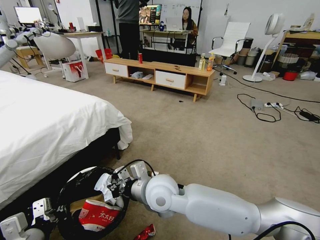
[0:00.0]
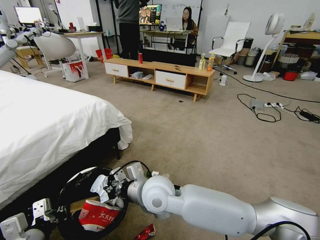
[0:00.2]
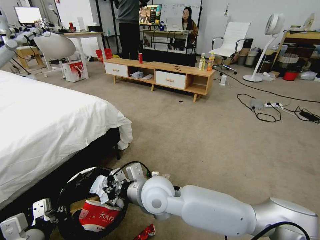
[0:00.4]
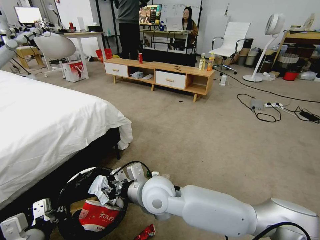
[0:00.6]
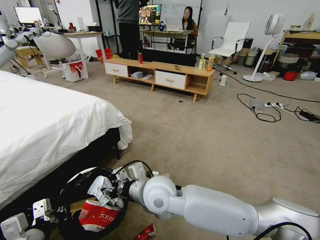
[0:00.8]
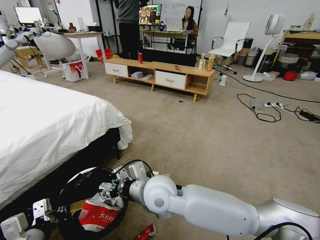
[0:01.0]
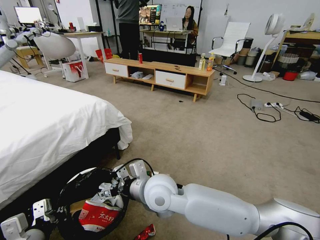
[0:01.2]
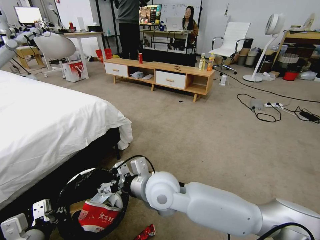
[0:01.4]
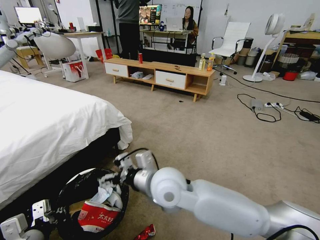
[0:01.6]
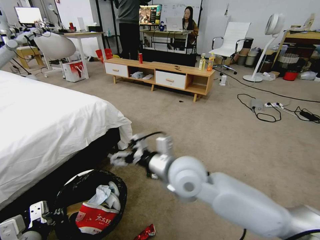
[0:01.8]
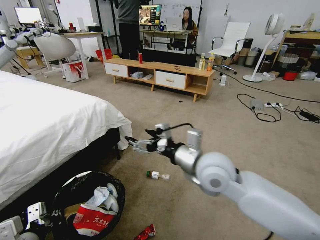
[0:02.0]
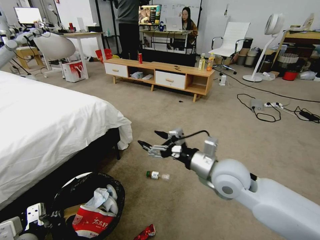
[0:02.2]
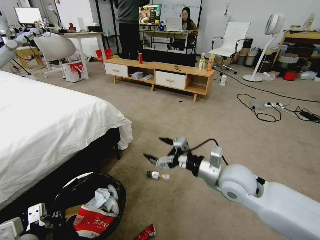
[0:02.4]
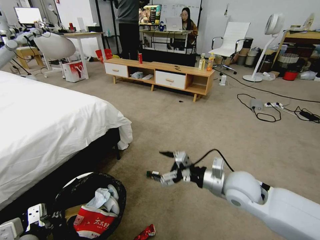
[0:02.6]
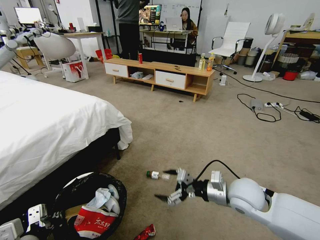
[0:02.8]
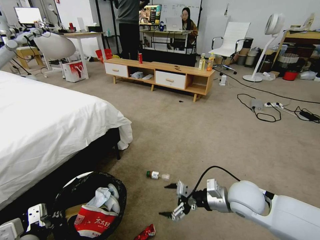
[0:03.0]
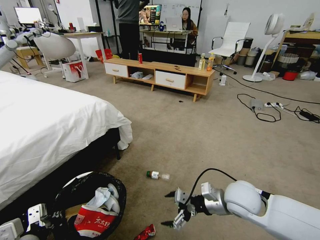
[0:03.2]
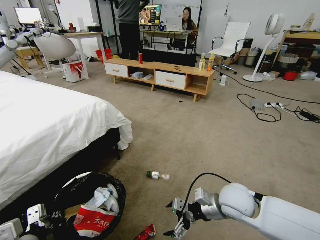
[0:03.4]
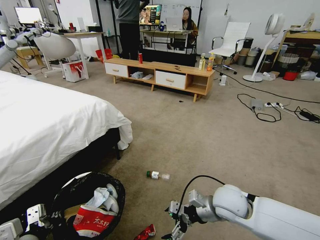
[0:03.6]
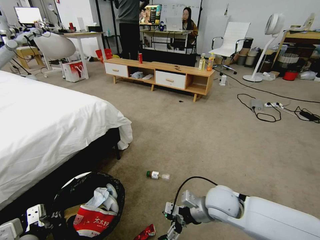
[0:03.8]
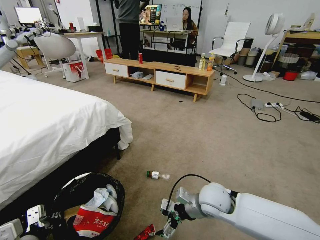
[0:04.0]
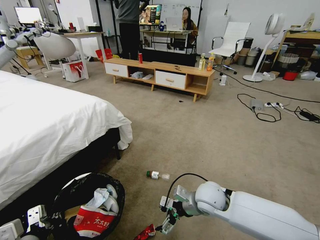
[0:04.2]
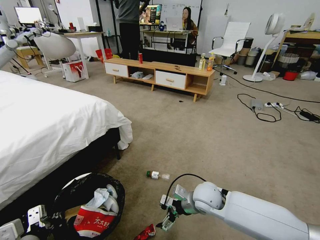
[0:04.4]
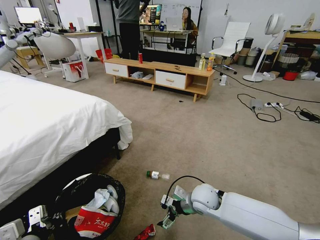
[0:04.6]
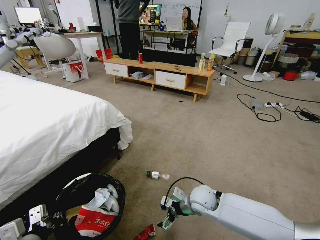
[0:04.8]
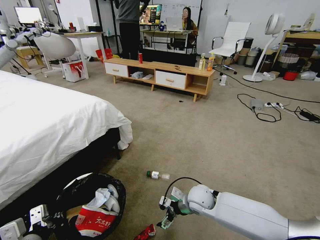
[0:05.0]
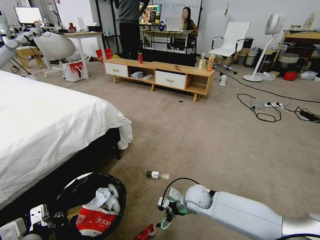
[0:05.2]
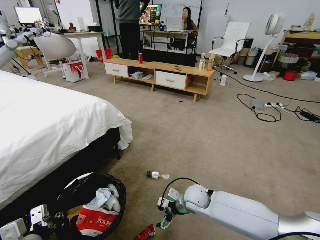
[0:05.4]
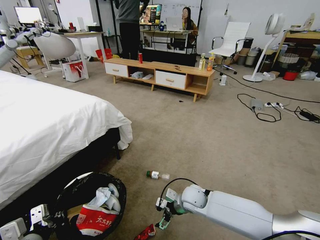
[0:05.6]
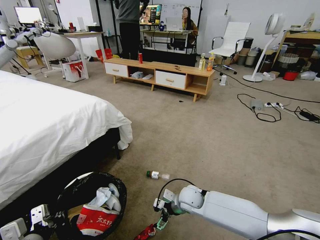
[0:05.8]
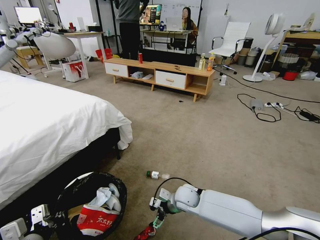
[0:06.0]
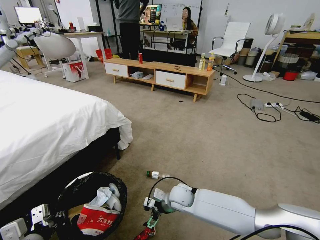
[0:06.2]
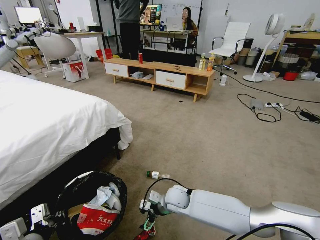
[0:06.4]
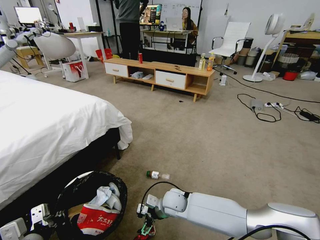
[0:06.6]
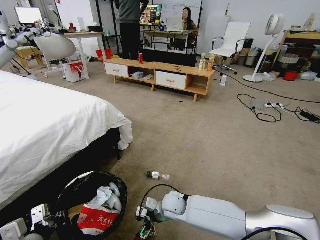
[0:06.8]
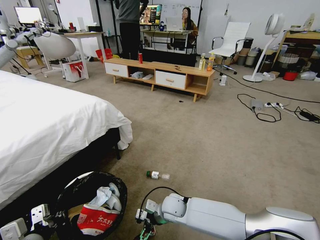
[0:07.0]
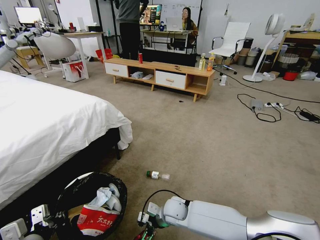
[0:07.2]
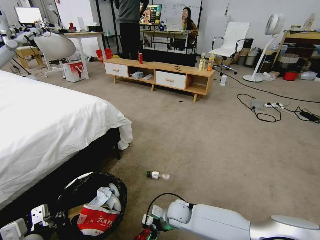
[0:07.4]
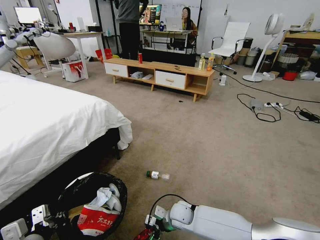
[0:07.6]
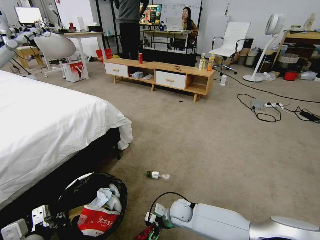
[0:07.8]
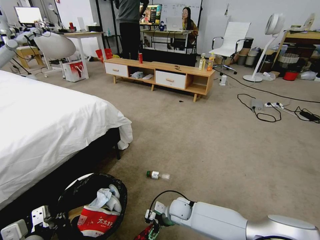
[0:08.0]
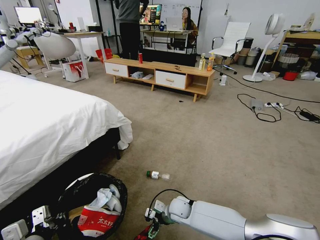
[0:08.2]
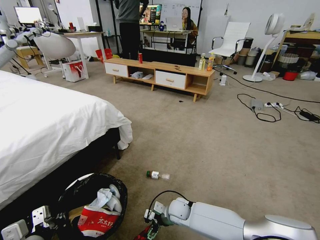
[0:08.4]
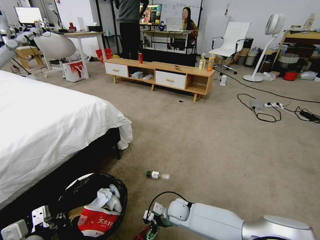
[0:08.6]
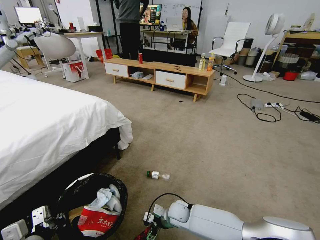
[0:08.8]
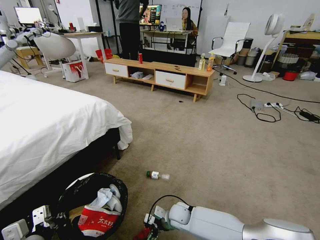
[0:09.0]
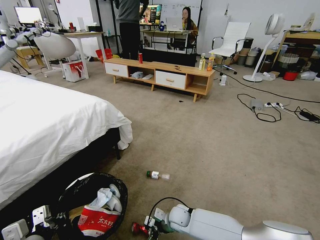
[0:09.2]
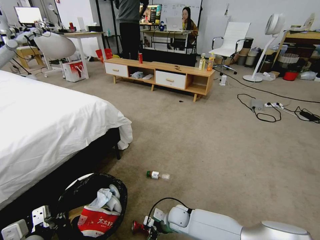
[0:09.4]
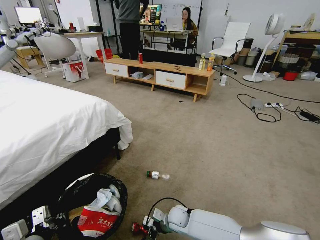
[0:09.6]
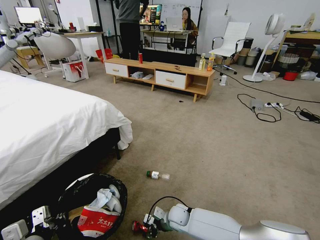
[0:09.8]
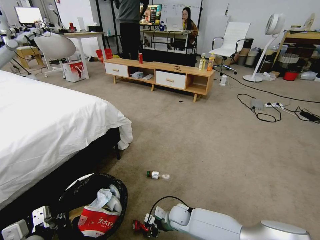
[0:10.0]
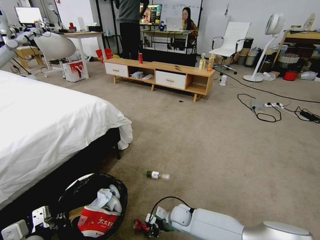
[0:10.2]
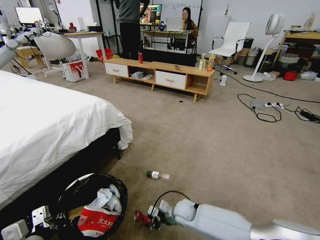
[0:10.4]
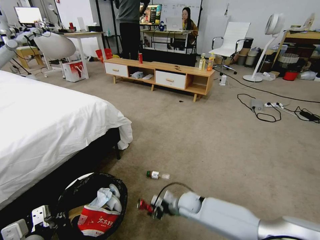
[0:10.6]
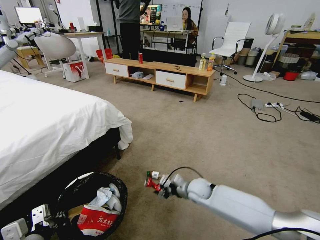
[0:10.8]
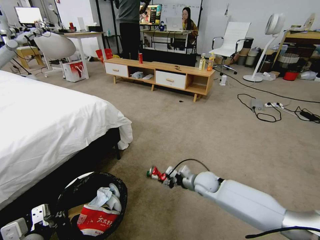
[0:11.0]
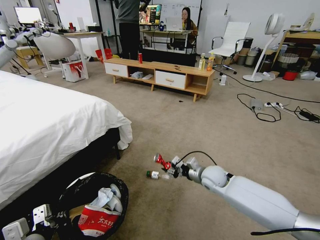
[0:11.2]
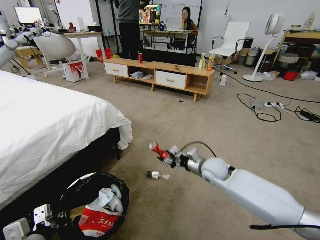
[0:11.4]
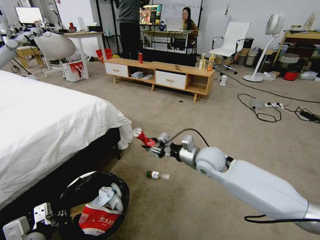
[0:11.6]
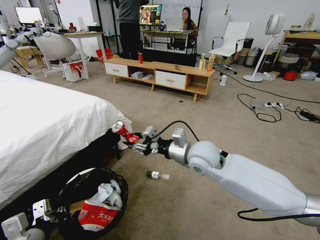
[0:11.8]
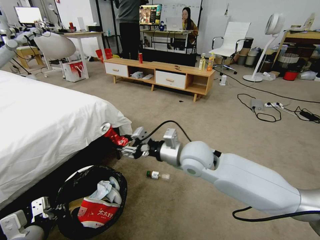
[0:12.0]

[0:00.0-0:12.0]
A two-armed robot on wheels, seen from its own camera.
Task of the whole recording: Pick up the trash bin and place the garbage on the floor into it.
0:00.0 to 0:01.6: The right gripper opens its fingers.
0:01.6 to 0:03.0: The right gripper shifts roughly 25 cm to the right.
0:03.0 to 0:04.4: The right gripper shifts approximately 10 cm to the left and downward.
0:04.4 to 0:06.0: The right gripper goes approximately 10 cm downward and to the left.
0:06.0 to 0:07.6: The right gripper goes about 5 cm downward.
0:07.6 to 0:09.0: The grippers move only a little.
0:09.0 to 0:10.4: The right gripper closes up.
0:10.4 to 0:12.0: The right gripper is displaced upward by approximately 35 cm.

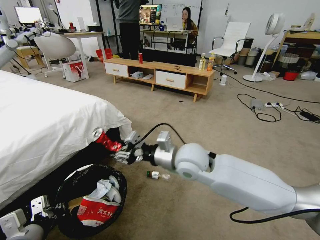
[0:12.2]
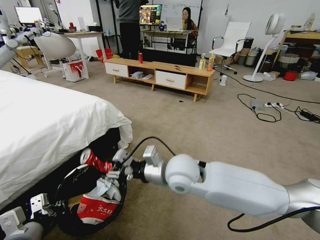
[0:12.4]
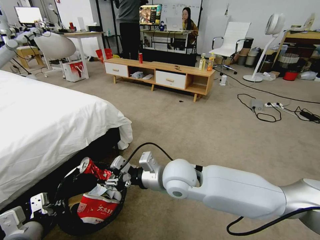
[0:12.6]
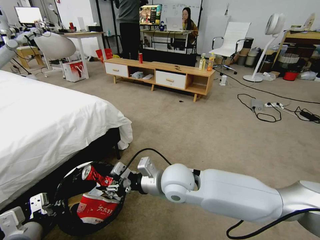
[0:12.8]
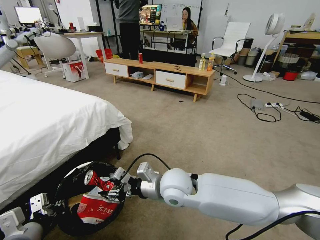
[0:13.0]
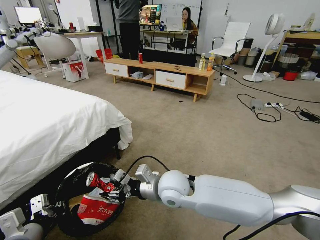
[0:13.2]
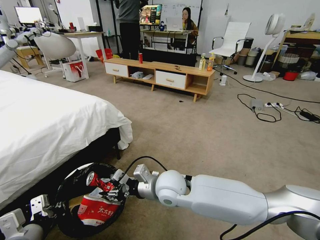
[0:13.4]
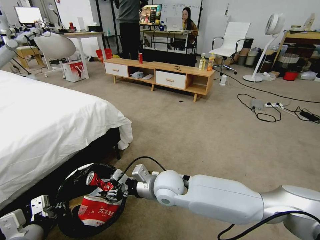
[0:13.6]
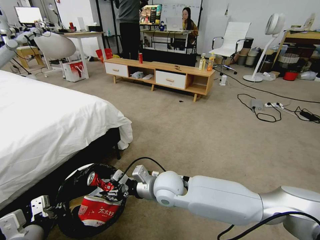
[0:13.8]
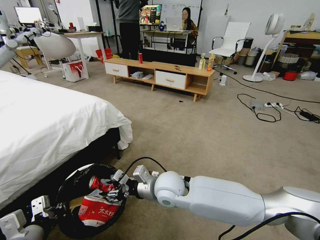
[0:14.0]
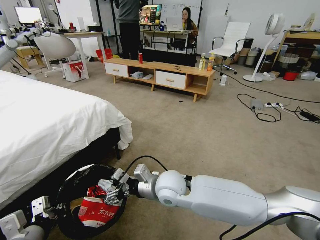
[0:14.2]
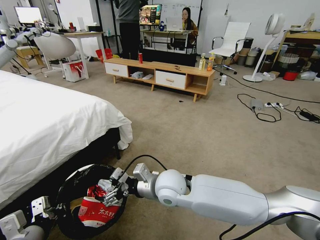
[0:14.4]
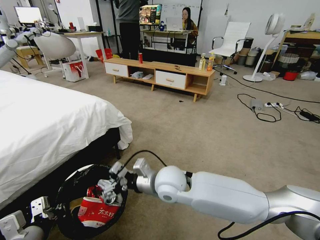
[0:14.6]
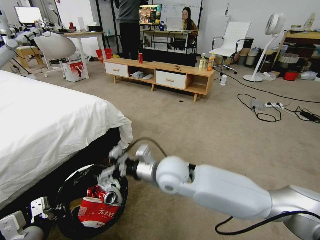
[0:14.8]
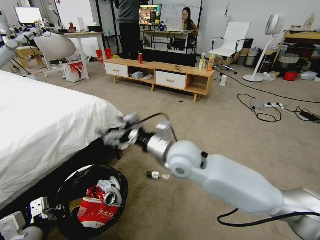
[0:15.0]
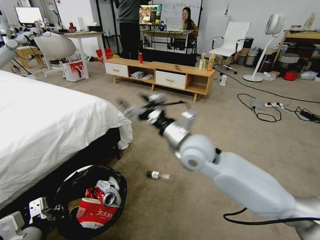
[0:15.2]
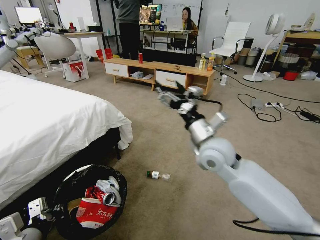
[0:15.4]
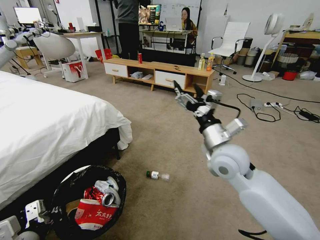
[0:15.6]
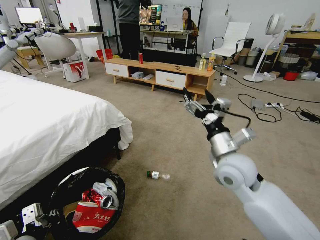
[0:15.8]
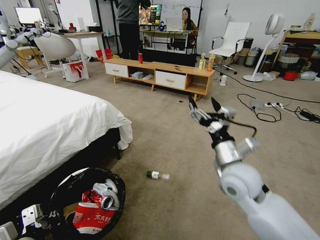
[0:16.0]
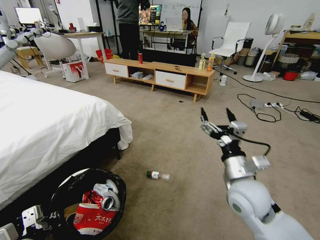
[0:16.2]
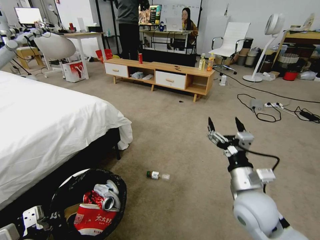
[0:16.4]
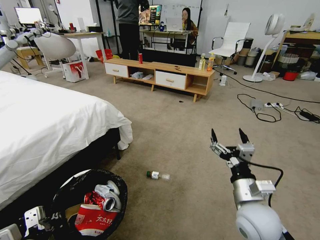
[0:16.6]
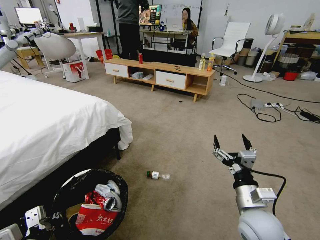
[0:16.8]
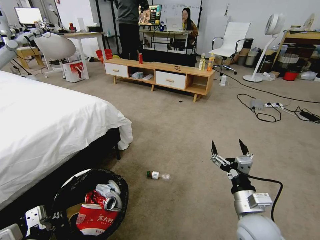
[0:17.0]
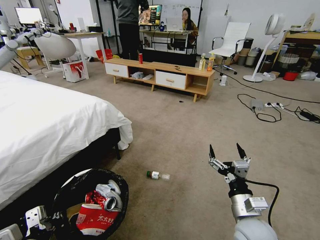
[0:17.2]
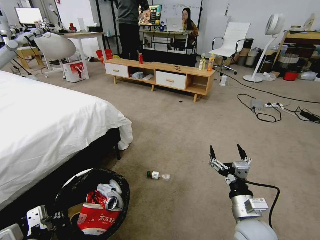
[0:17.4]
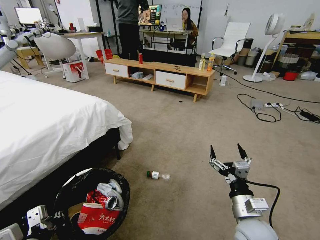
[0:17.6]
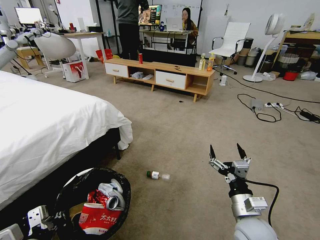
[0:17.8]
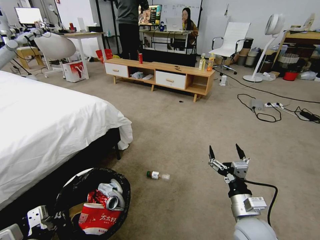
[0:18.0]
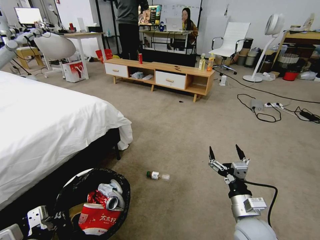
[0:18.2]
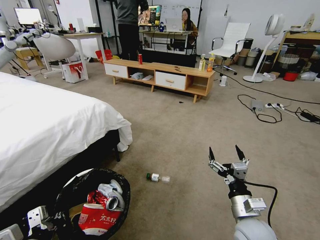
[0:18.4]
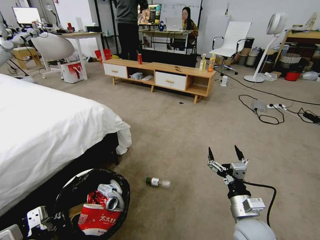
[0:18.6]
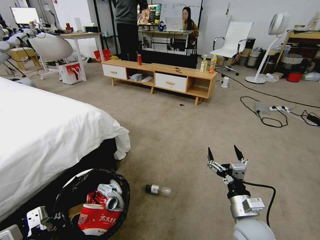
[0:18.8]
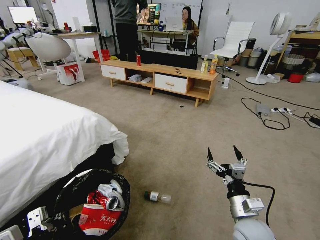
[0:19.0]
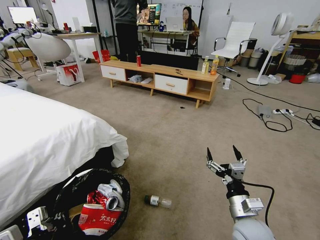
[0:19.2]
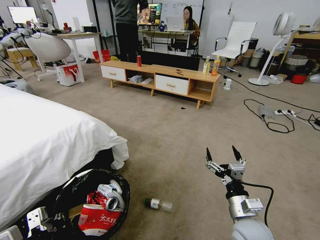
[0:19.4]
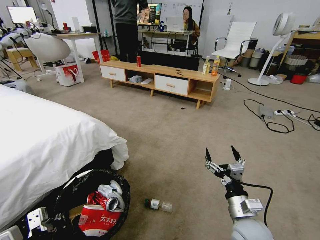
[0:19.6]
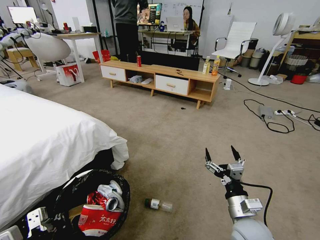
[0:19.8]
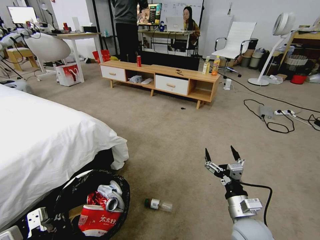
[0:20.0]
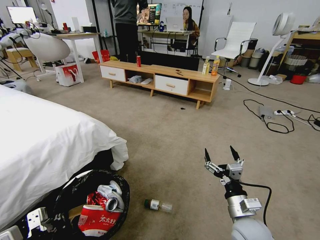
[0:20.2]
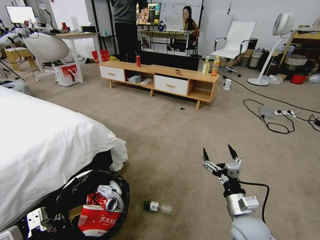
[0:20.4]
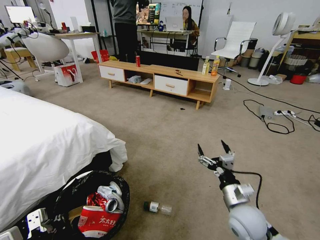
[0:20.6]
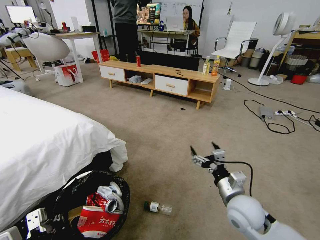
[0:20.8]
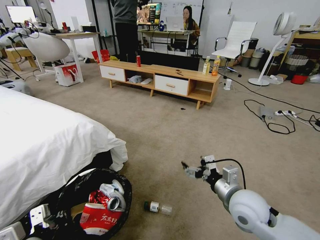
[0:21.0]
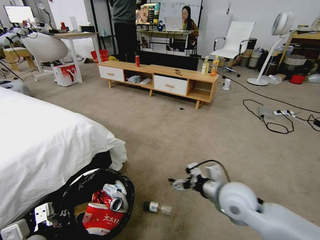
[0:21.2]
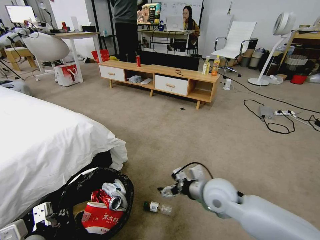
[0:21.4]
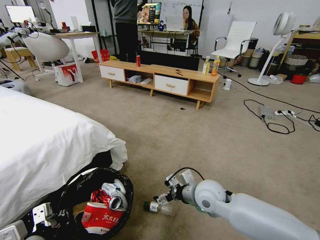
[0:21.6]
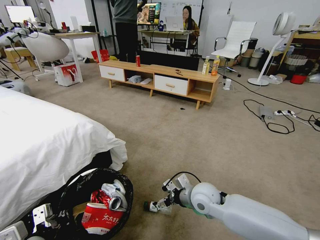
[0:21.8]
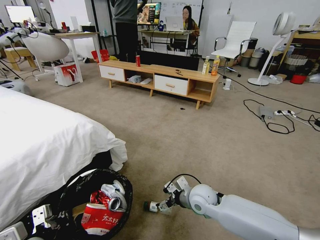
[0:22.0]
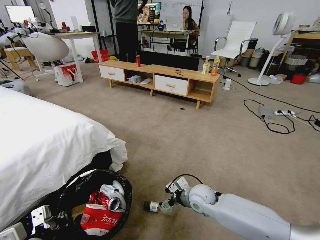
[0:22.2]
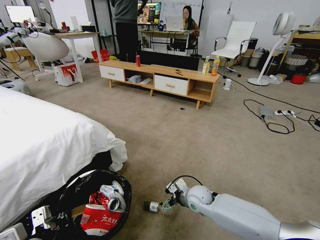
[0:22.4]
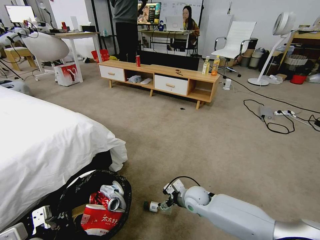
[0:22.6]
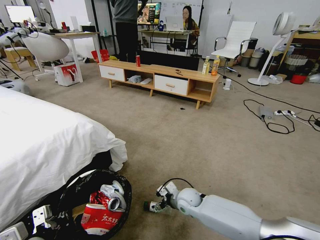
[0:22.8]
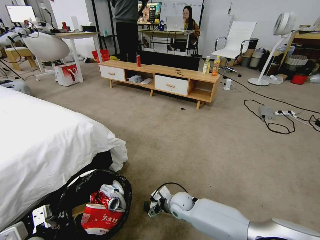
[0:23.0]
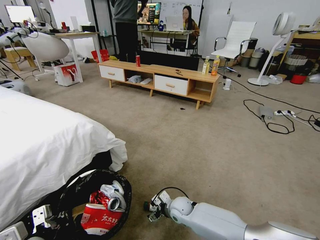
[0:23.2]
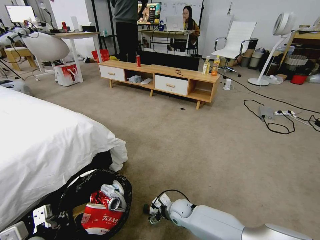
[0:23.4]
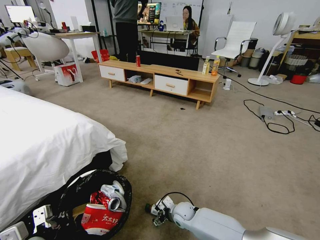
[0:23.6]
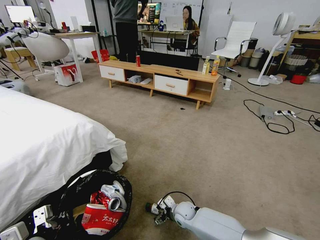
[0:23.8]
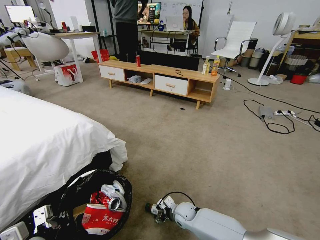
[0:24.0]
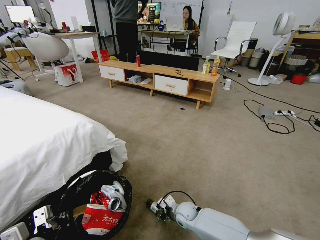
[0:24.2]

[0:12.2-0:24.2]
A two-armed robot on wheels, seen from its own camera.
Task of the whole recording: Pick up the trash bin and place the garbage on the floor into it.
0:12.2 to 0:13.8: The right gripper shifts approximately 10 cm downward and to the left.
0:13.8 to 0:15.2: The right gripper moves upward, approximately 10 cm, and opens its fingers.
0:15.2 to 0:16.6: The right gripper moves to the right, backward and downward, about 25 cm.
0:16.6 to 0:18.2: The right gripper is displaced downward by about 5 cm.
0:19.8 to 0:21.2: The right gripper shifts some 10 cm upward.
0:21.2 to 0:22.6: The left gripper closes its fingers; the right gripper is displaced downward, forward and to the left by approximately 25 cm.
0:22.6 to 0:24.2: The right gripper travels downward by some 10 cm, and closes up.
